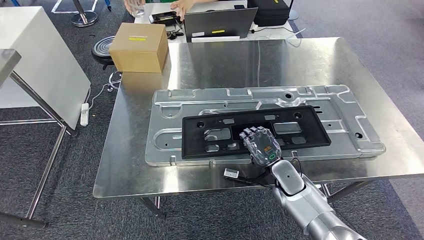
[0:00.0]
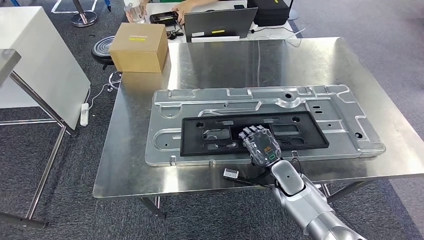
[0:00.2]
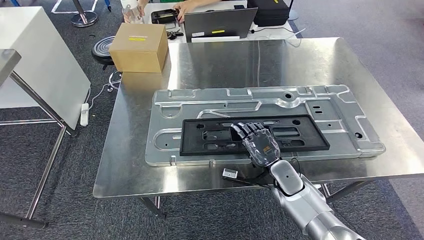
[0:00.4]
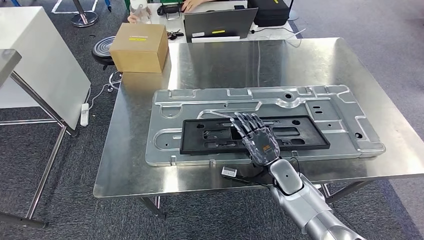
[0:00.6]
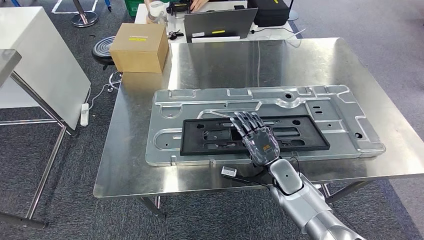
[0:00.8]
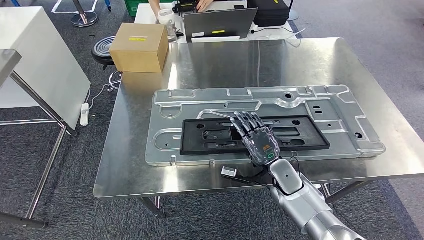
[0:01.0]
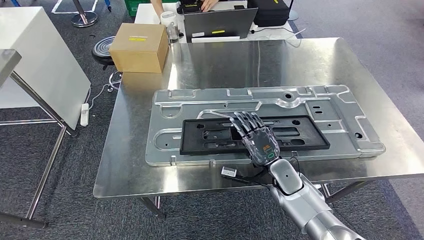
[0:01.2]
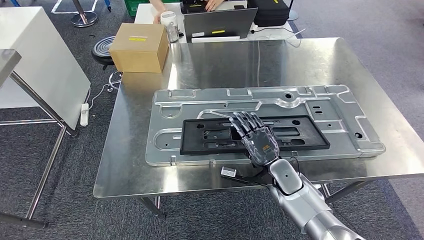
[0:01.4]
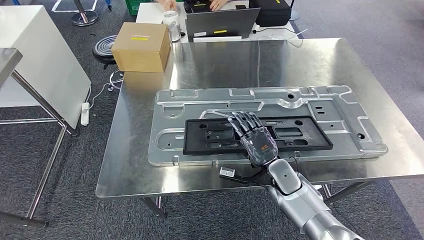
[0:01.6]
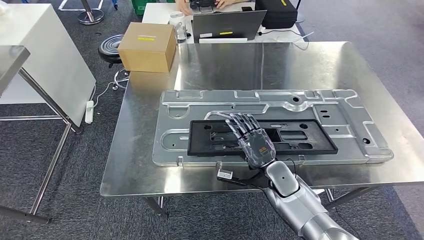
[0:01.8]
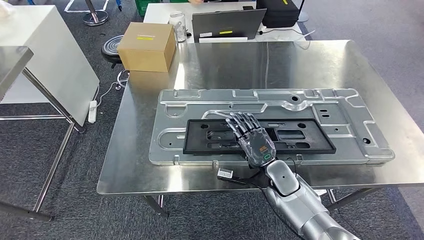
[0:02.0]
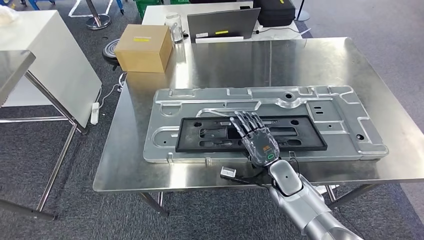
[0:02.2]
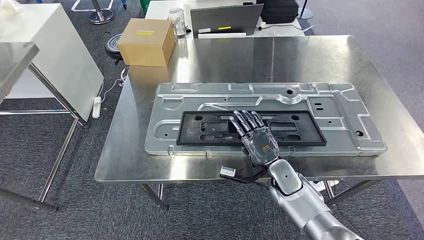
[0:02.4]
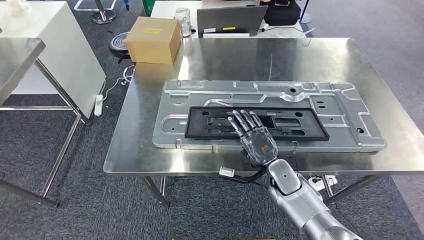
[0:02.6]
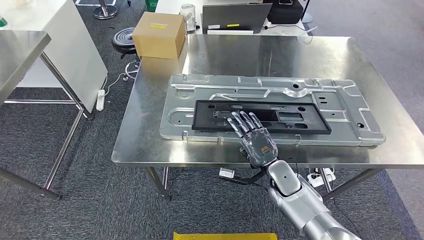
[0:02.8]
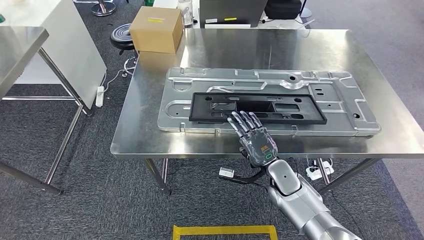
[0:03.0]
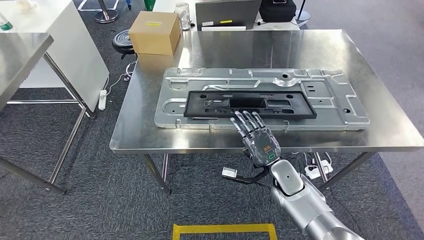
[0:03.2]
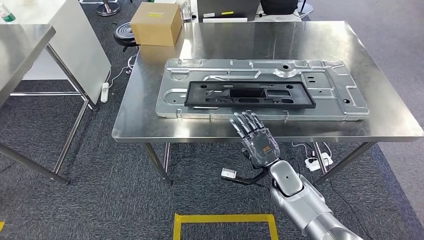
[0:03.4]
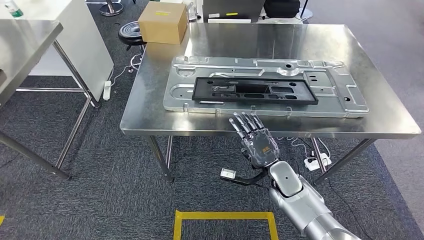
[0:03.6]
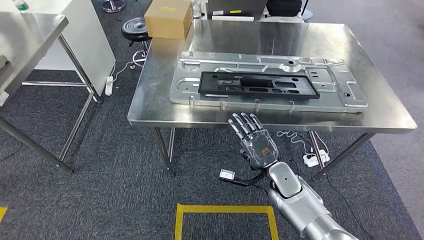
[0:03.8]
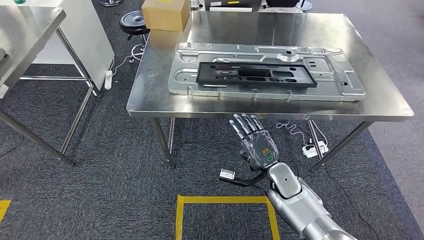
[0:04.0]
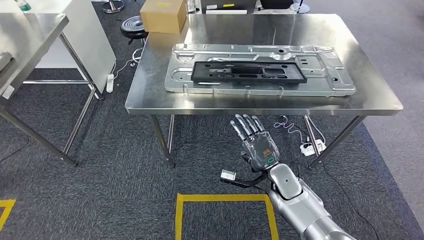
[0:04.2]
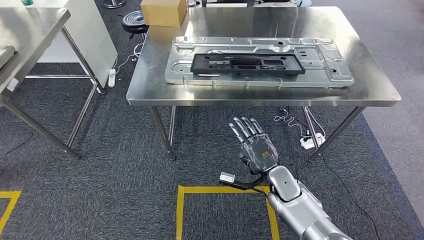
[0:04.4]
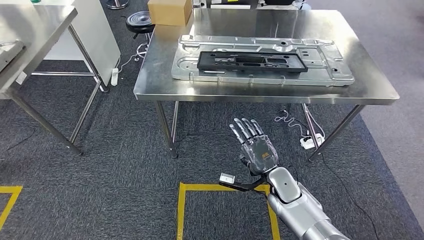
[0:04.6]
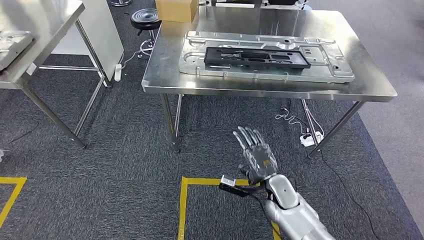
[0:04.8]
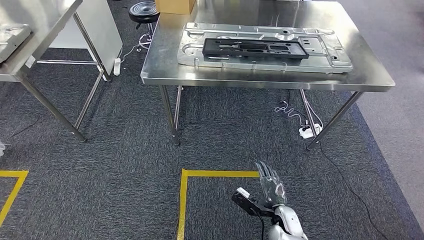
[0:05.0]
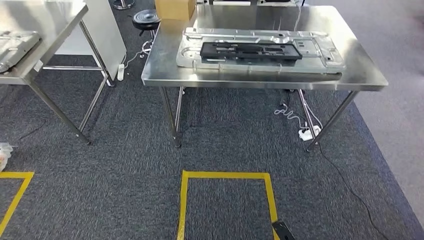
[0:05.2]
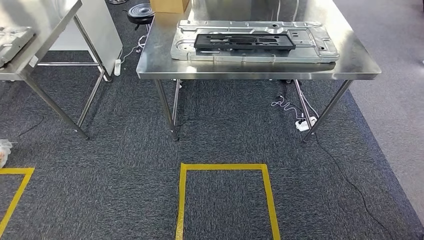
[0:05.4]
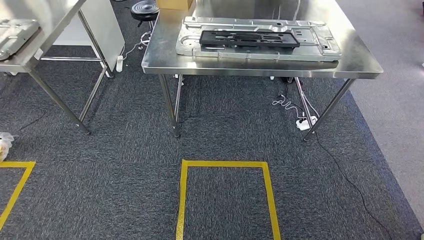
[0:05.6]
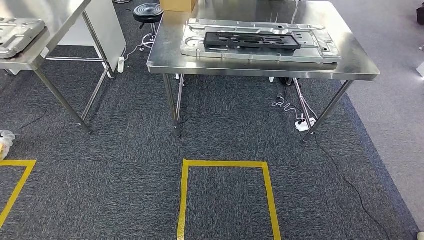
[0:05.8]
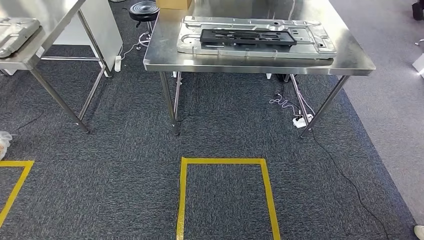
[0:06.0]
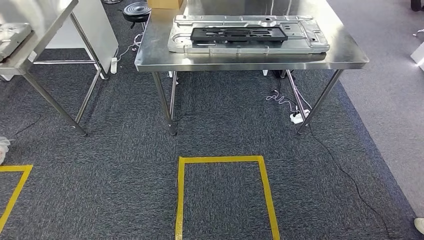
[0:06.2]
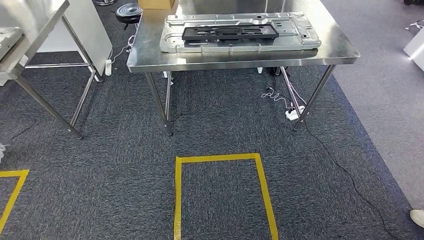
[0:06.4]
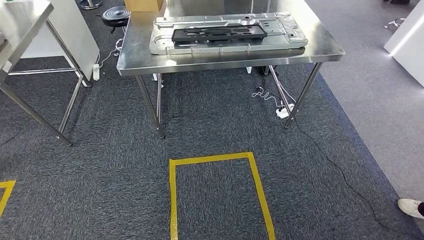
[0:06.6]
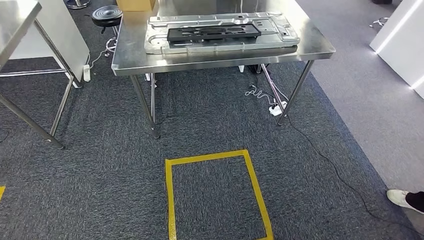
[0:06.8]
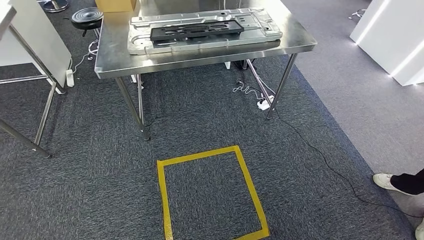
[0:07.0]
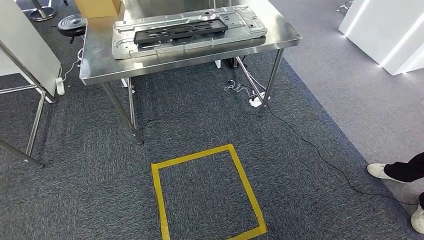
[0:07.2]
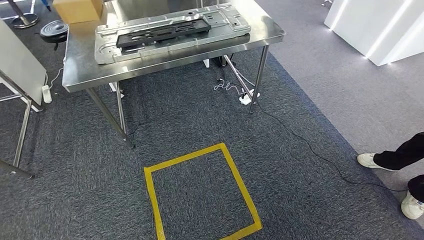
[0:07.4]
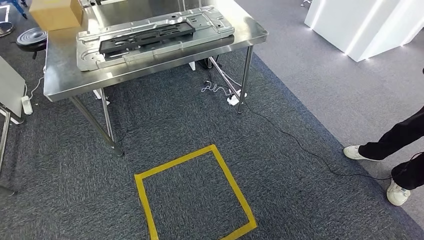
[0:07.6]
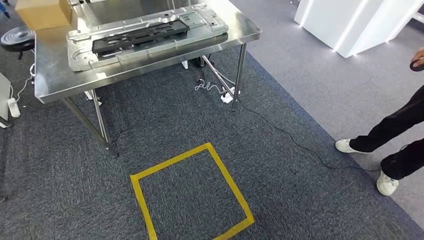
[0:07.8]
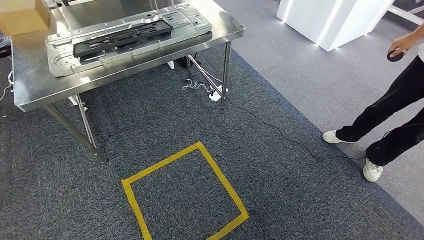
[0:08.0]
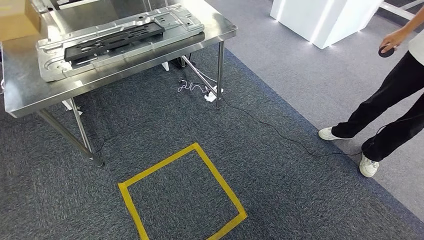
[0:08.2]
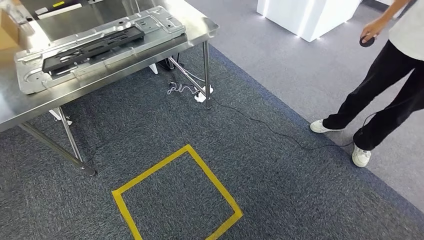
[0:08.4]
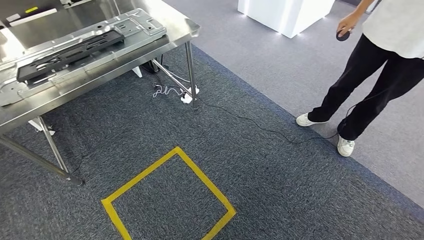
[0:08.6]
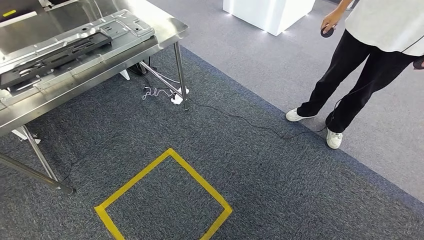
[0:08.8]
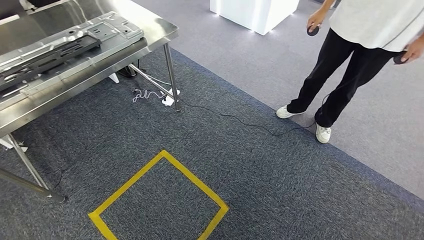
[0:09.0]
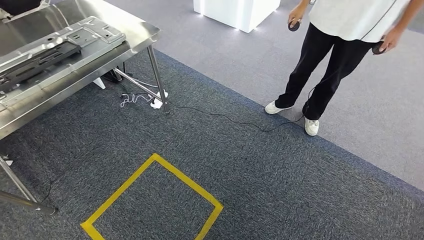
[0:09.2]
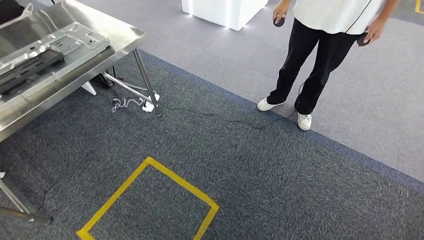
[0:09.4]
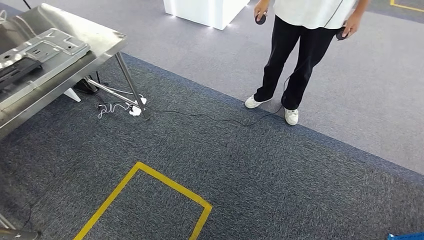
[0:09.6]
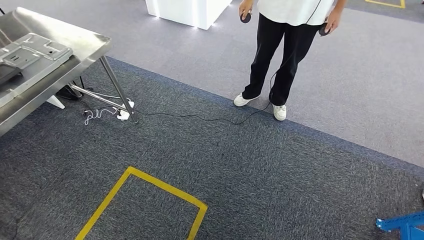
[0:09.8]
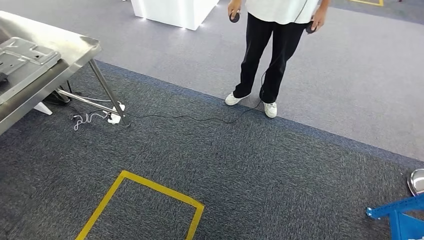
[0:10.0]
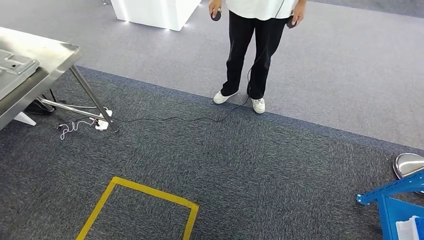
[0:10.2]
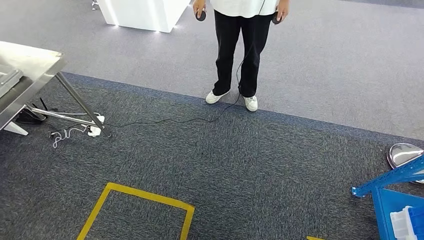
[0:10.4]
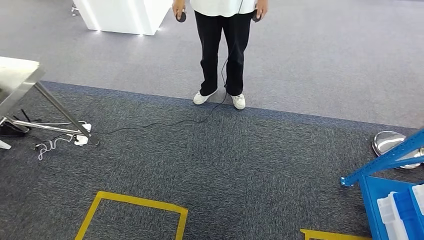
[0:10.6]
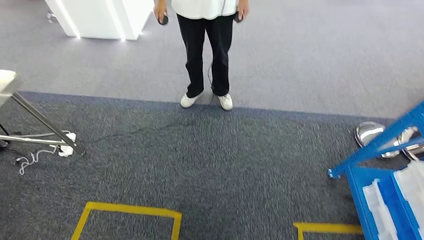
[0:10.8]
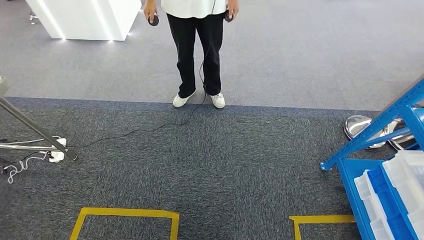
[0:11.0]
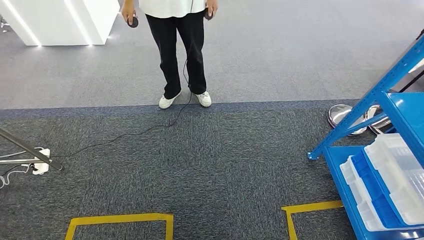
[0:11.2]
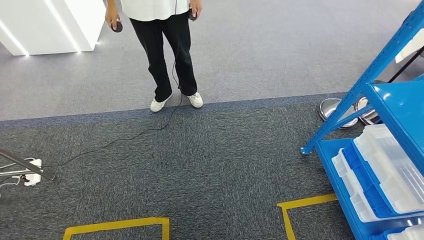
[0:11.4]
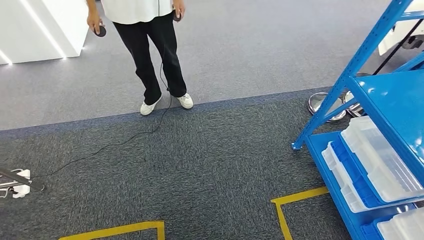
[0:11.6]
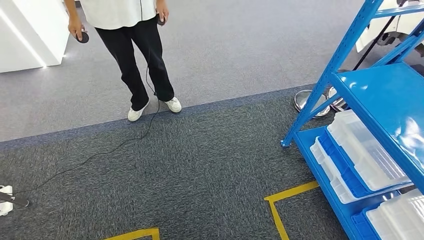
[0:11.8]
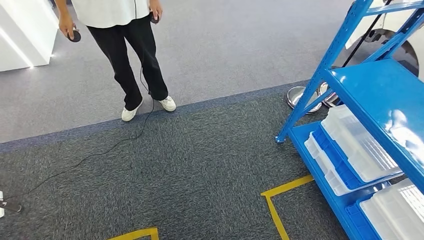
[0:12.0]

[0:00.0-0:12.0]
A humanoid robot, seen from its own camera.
Step, 0:00.0 to 0:03.8: Insert the large material into the corresponding slot on the workbench.
0:00.0 to 0:01.6: The hands stay close to where they were, moving slightly.

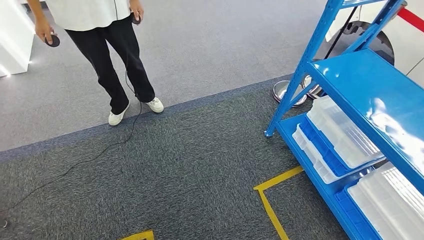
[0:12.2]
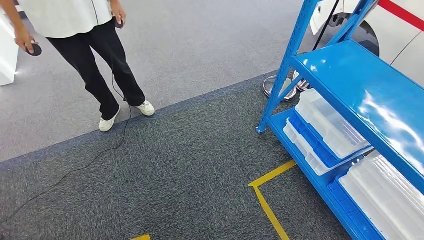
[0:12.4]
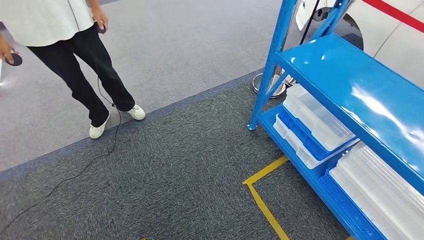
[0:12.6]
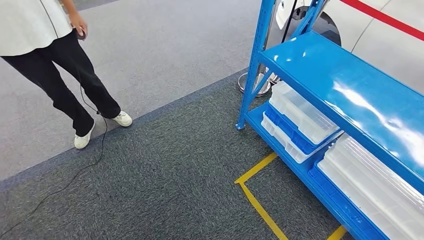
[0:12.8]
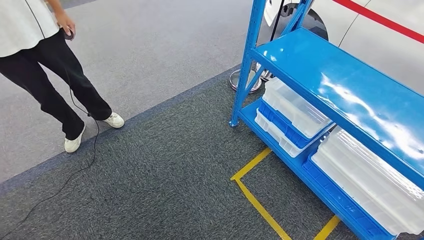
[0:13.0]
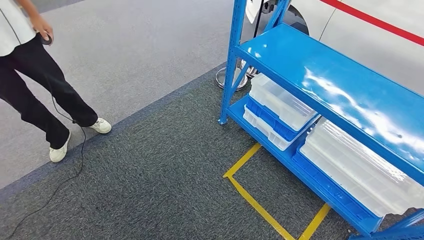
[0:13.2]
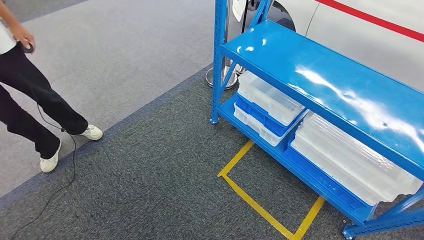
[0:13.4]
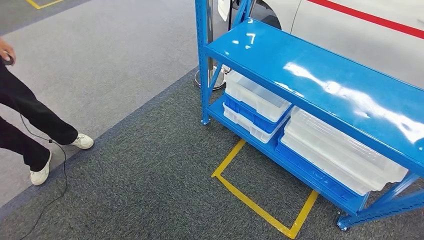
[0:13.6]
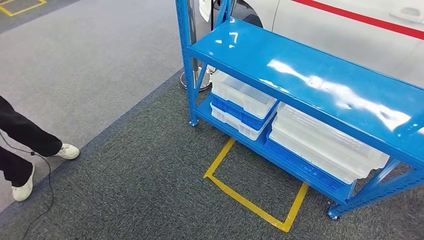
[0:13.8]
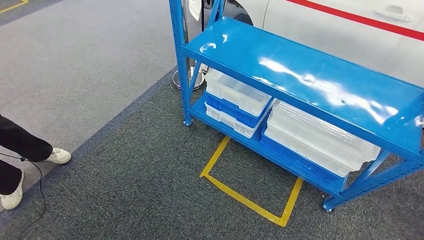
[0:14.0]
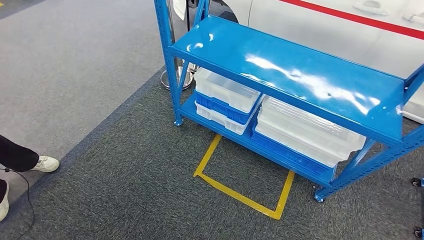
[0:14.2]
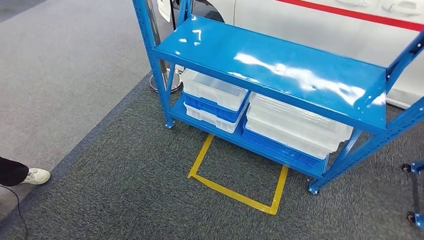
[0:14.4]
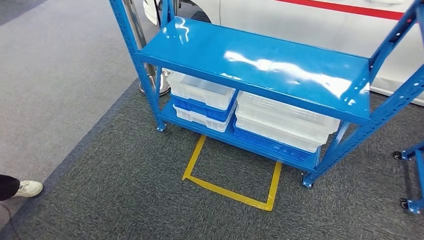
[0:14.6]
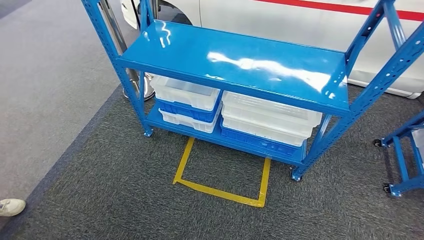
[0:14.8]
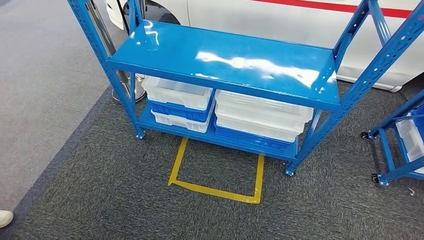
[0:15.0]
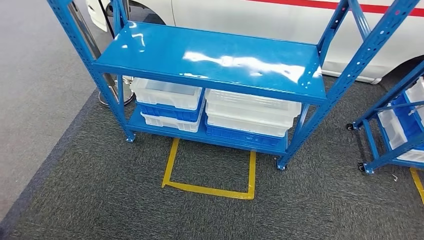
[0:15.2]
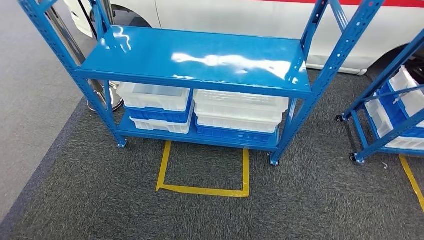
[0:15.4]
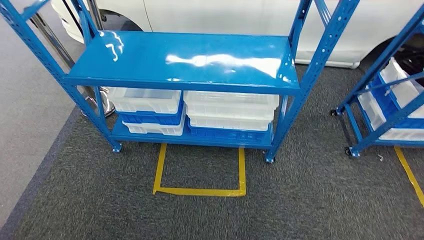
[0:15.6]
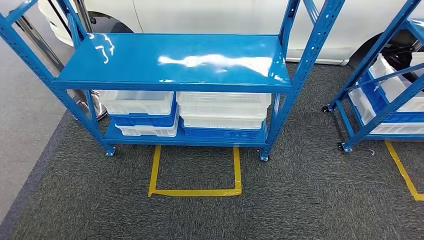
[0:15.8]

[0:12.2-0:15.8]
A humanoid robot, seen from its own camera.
Step, 0:12.2 to 0:15.6: Move to the initial position of the shelf.
